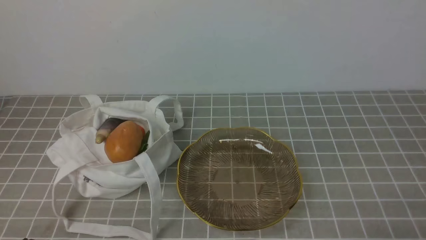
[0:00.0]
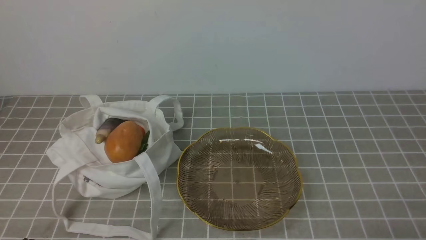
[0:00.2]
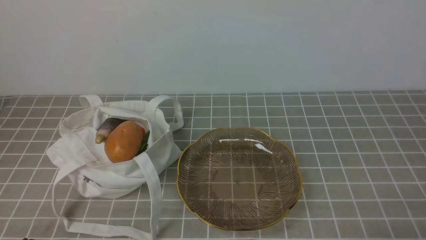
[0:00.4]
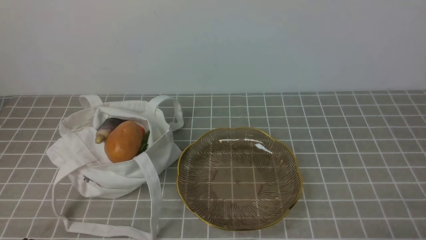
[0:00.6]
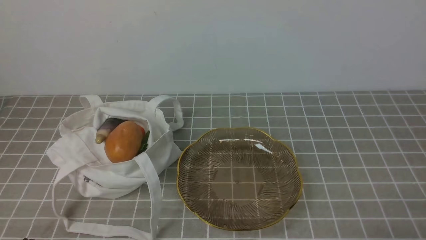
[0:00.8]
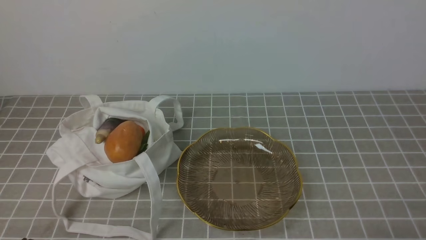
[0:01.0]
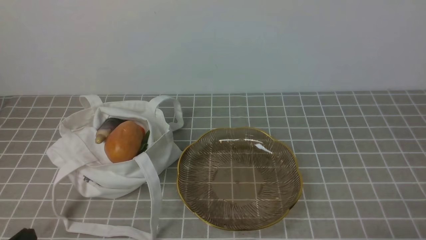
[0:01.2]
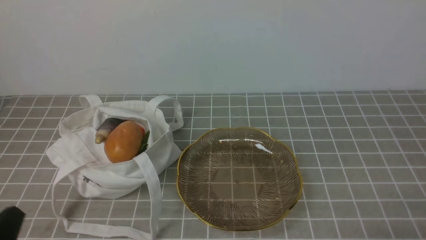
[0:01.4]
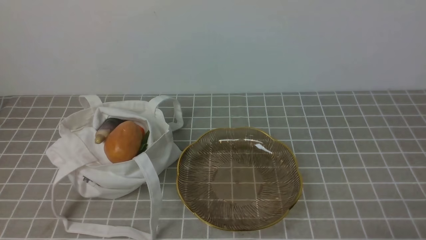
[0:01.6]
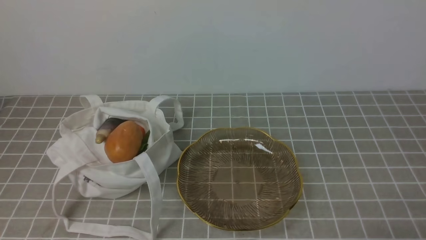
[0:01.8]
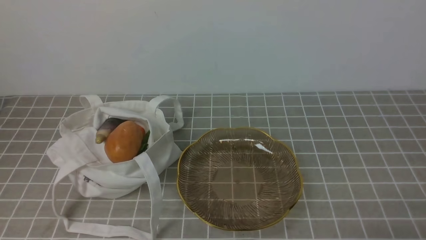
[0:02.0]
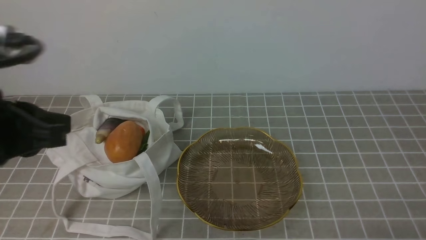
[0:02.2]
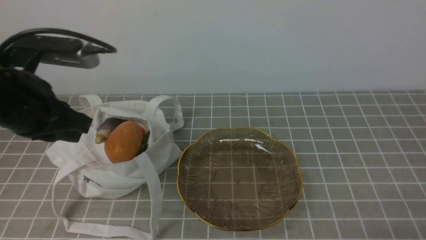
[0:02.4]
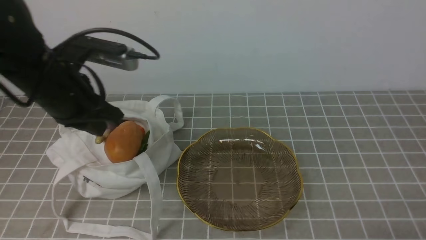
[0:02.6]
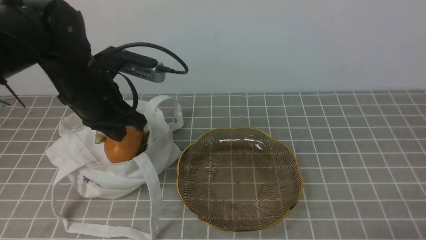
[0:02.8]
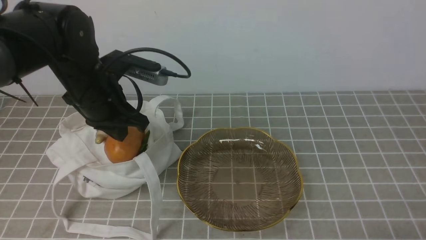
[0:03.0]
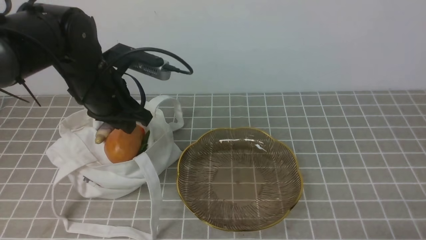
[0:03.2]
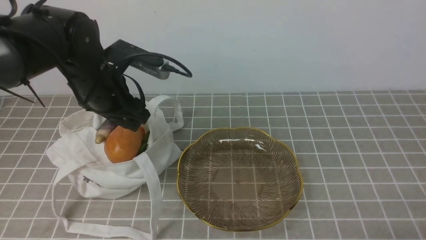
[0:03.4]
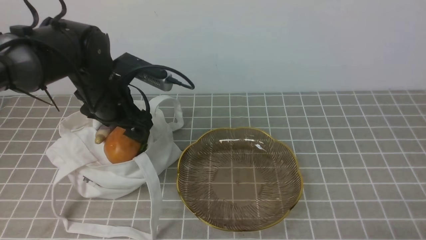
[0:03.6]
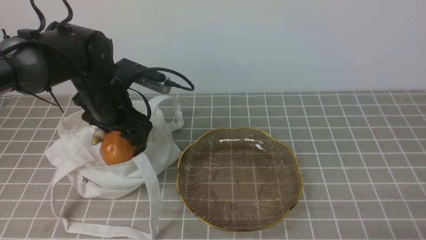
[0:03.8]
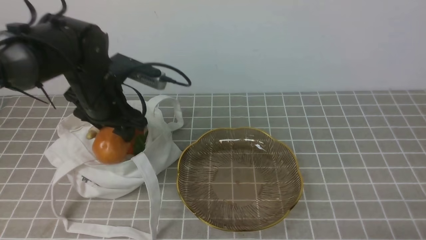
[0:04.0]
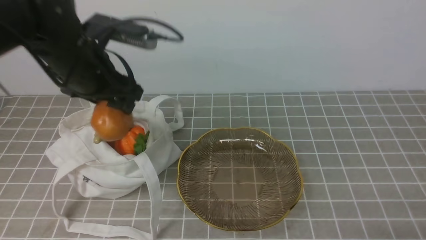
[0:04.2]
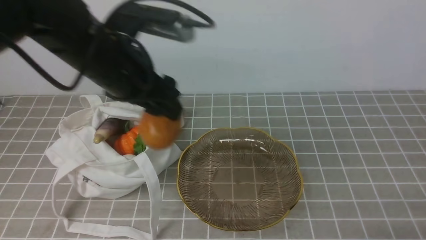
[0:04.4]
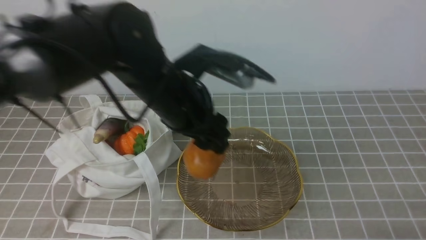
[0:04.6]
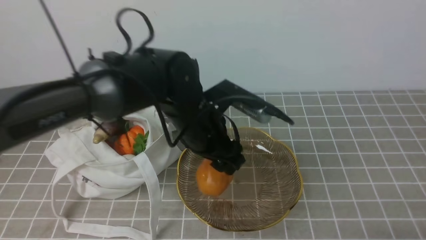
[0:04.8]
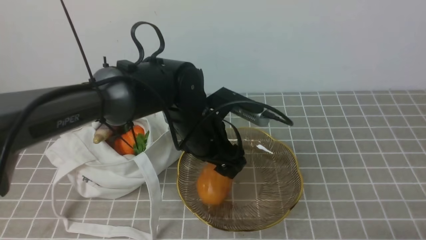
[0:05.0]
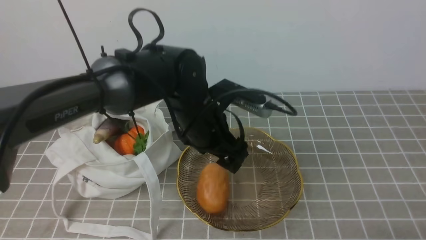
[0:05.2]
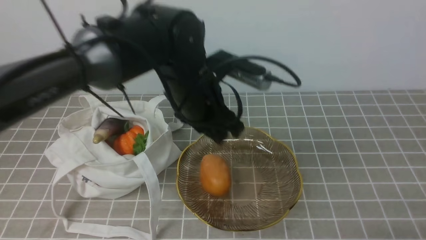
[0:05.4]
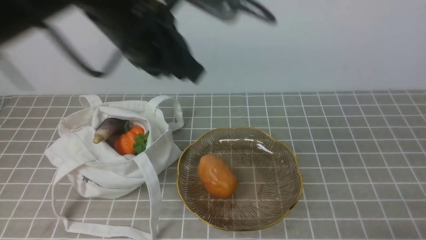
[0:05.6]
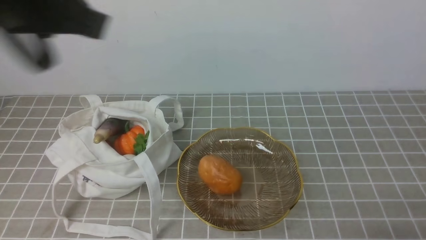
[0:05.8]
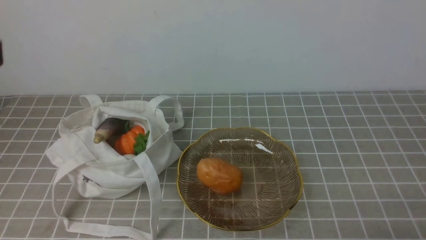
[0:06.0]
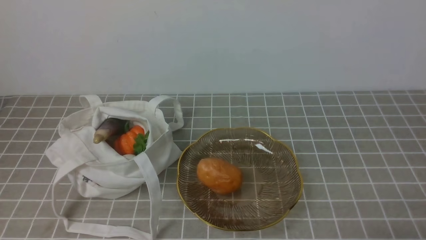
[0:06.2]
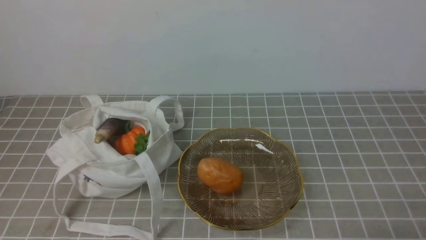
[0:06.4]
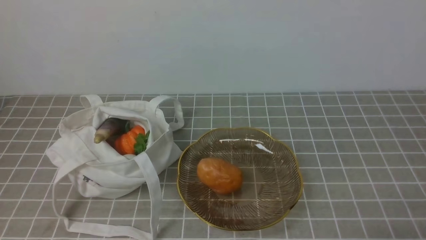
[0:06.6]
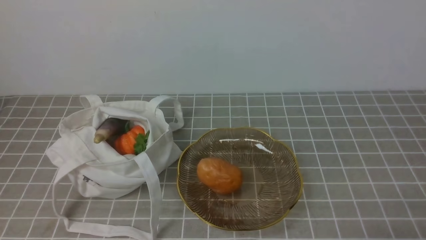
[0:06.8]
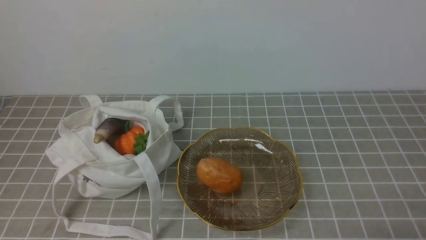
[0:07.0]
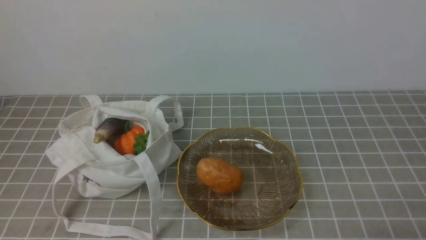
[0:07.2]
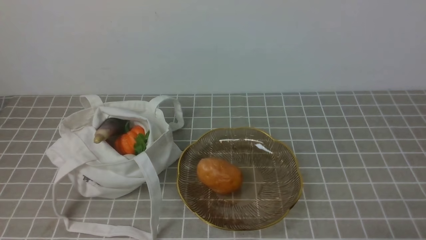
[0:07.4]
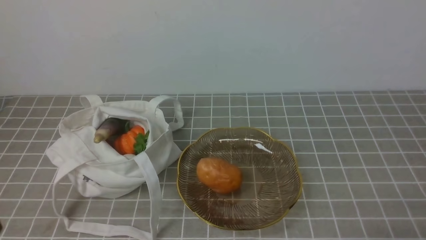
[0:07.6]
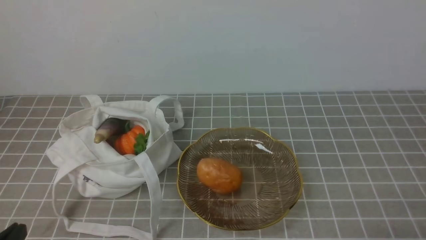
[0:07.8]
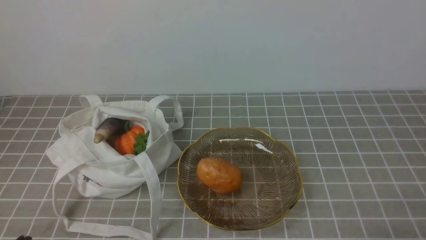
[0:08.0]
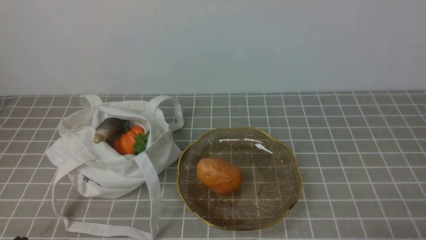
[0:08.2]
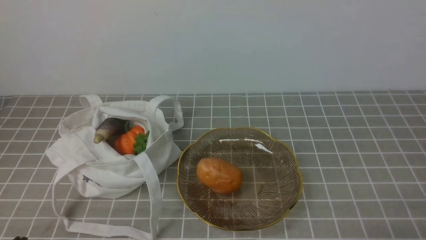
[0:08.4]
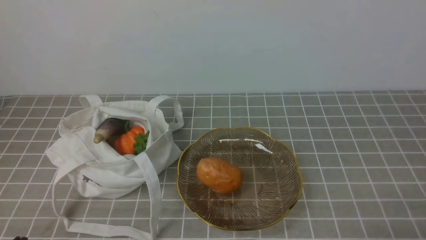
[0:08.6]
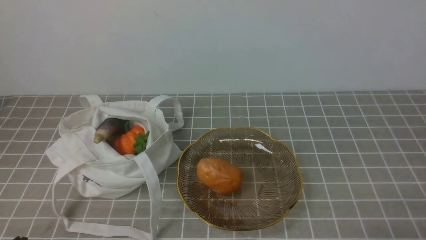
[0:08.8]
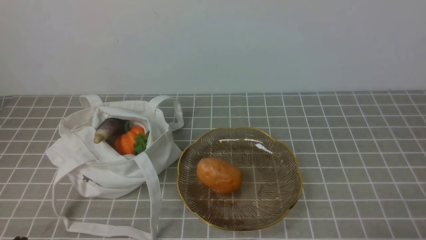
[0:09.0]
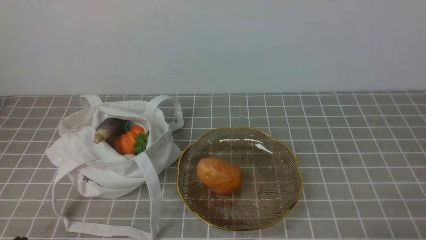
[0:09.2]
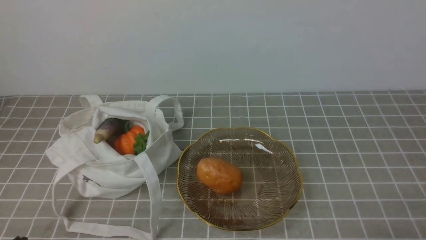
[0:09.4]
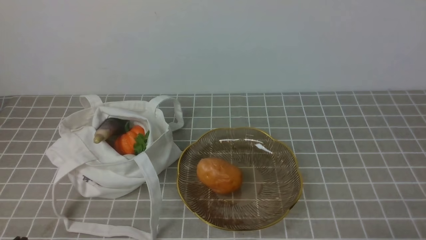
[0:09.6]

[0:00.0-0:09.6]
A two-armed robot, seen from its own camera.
Task of the whole recording: take vegetables from bag on grey coffee tablecloth place on plate.
Step, 0:00.0 to 0:03.6: Grasp the potato with left gripper.
Step, 0:04.0 to 0:05.4: Place the potato on the plate with left gripper.
0:01.6 to 0:03.2: The left gripper heads forward, covering approximately 30 cm.
0:03.2 to 0:04.8: The left gripper travels to the right by approximately 15 cm, and opens up.
0:04.8 to 0:06.4: The left gripper shifts roughly 35 cm backward and to the left, and closes its fingers.
